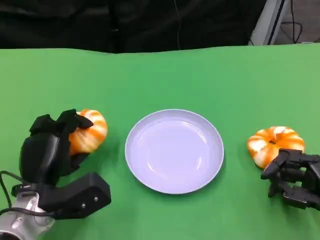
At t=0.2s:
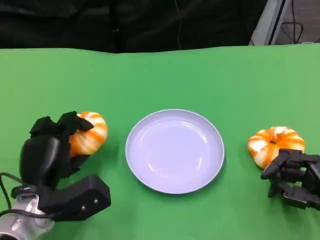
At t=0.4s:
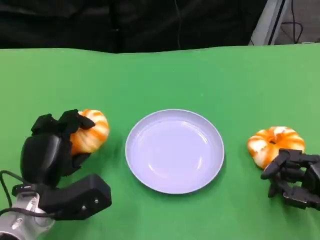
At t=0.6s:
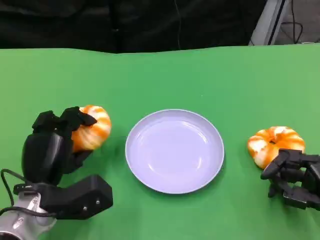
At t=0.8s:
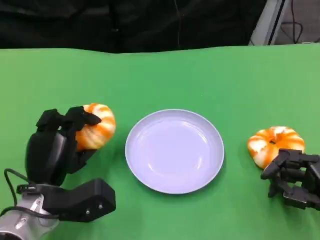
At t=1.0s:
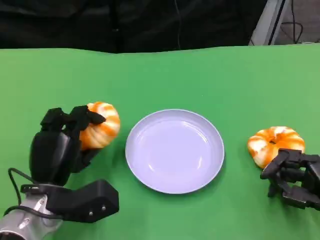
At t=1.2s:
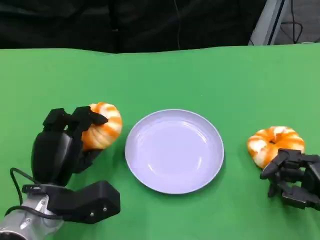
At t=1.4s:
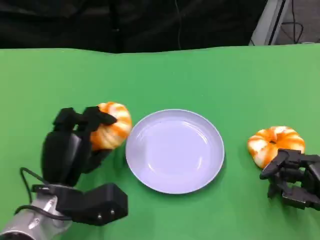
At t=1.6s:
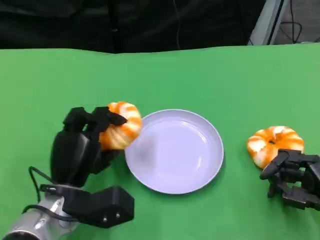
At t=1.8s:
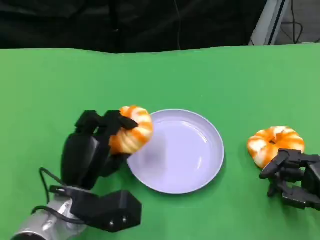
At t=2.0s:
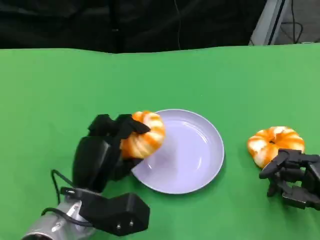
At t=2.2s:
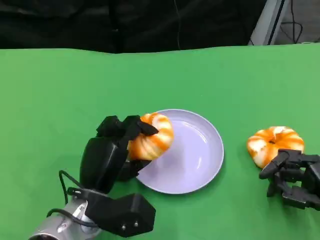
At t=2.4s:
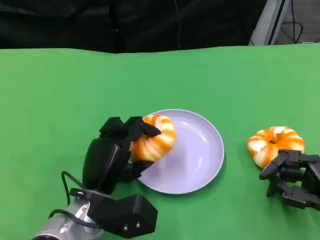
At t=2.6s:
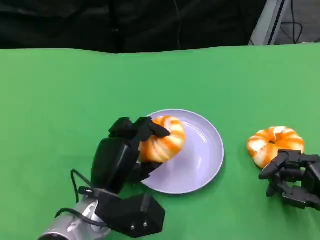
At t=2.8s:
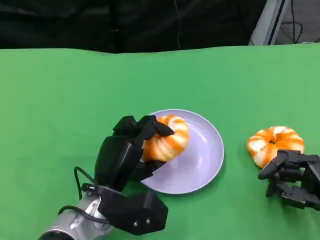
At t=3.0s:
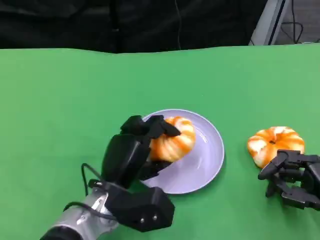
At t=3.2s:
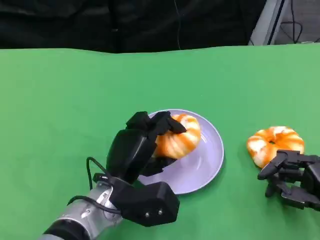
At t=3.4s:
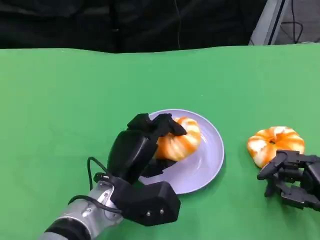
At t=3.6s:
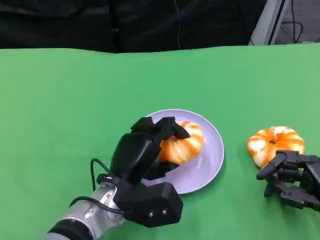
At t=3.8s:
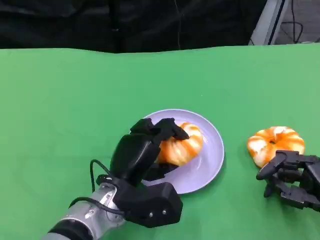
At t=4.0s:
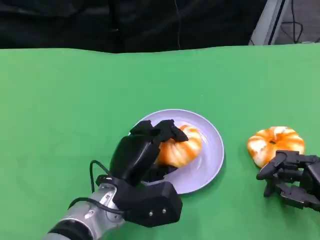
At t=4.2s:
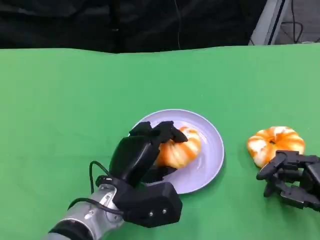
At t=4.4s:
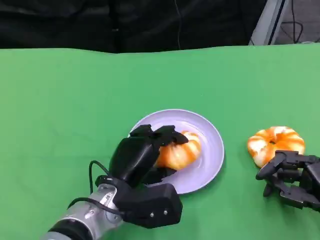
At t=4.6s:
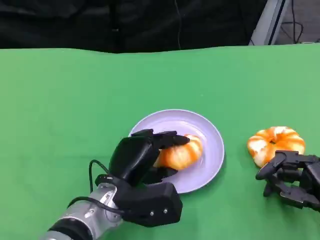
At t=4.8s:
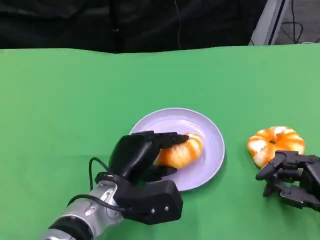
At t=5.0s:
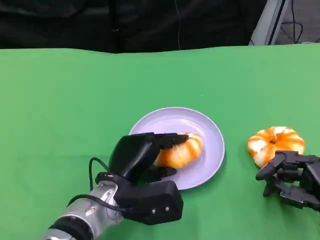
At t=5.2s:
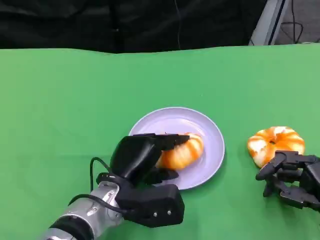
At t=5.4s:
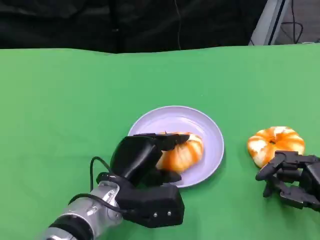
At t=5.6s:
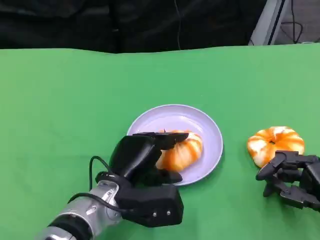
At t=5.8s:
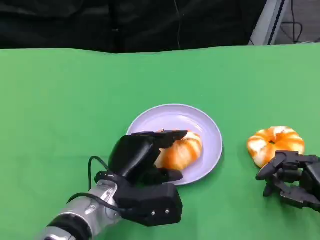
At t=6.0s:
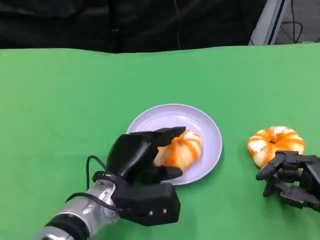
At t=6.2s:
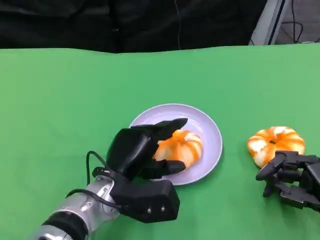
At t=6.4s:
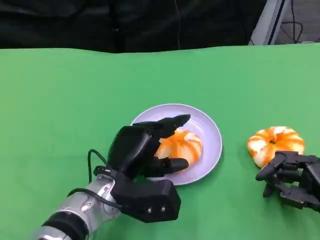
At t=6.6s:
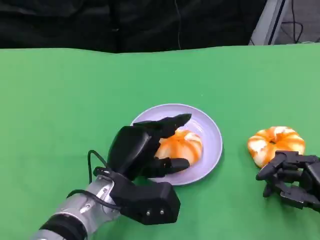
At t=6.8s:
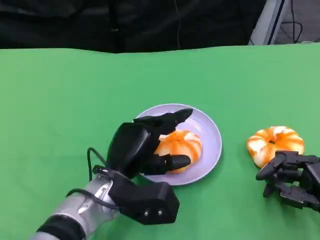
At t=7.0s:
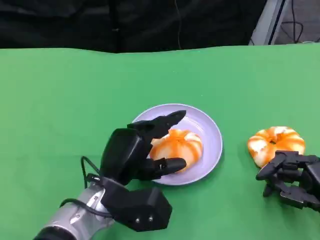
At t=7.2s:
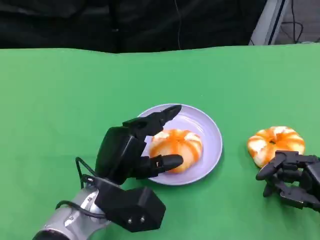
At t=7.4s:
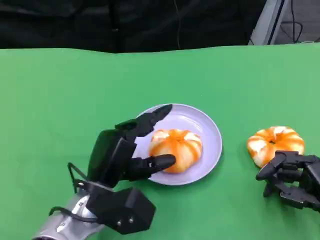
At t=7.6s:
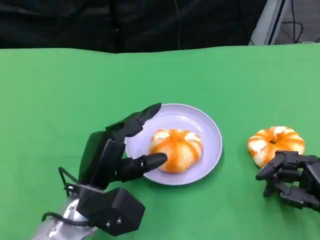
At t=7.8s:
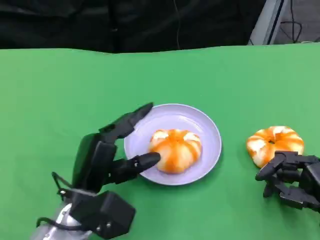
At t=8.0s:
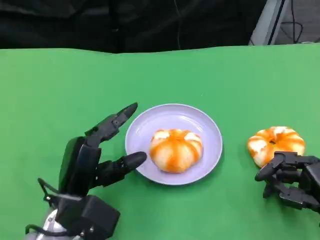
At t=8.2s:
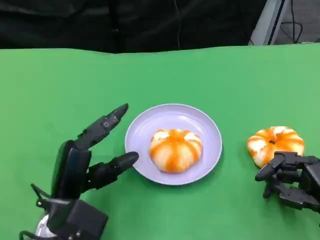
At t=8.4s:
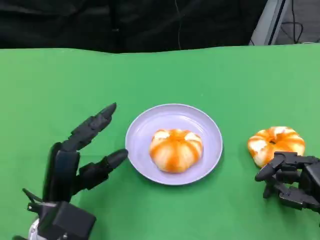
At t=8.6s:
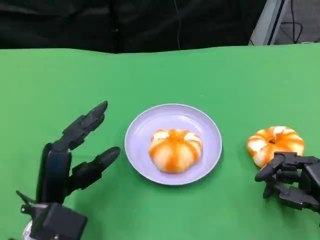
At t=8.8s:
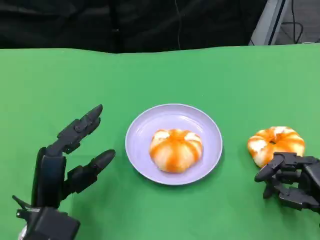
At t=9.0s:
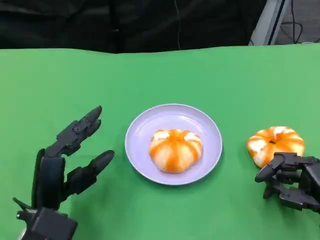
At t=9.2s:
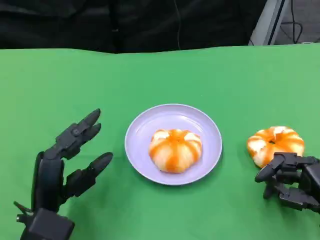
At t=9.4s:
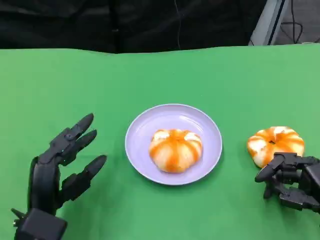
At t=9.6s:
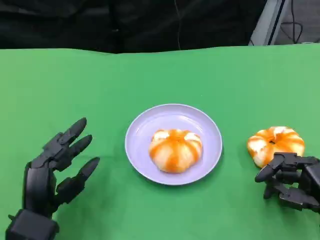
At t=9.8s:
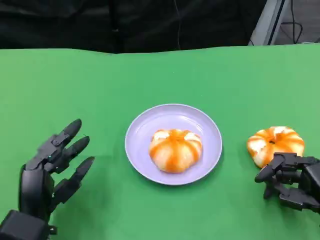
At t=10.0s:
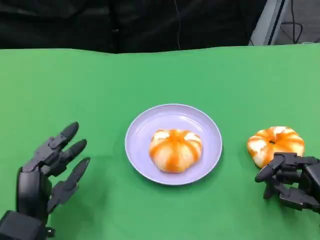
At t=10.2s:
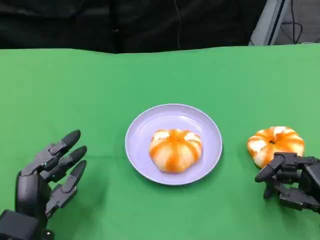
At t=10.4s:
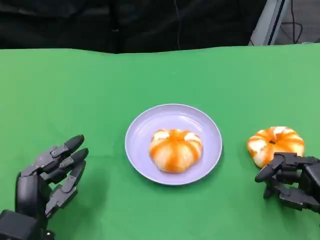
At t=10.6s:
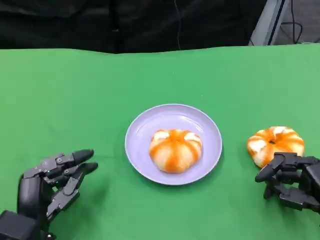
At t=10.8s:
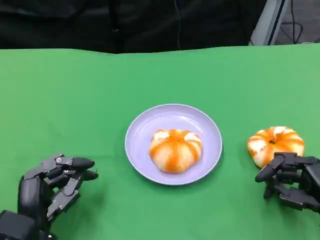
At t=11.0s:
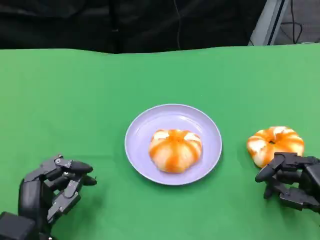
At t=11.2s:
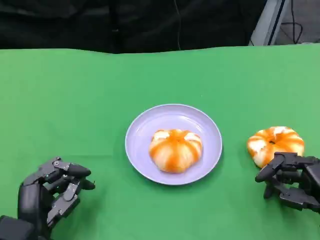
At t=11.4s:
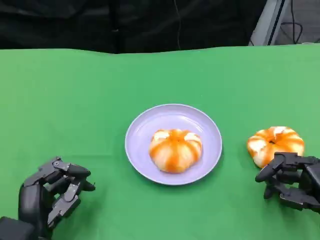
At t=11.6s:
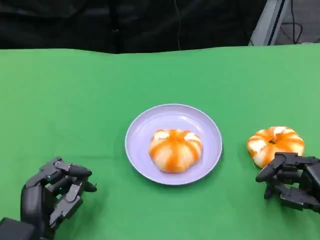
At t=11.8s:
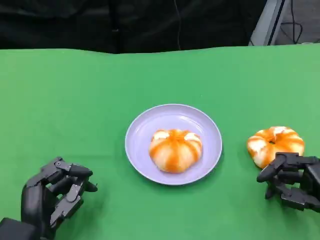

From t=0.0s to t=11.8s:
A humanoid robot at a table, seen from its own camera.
Task of the whole recording: Grasp the bread from the table and place it into the plate.
From t=0.0s to t=1.4s: There are only small adjustments of the hands.
From t=1.4s to t=3.0s: The left hand is displaced to the right by approximately 5 cm.
From t=3.0s to t=6.0s: There are only small adjustments of the hands.
From t=7.4s to t=8.8s: The left hand is displaced to the left by roughly 5 cm.
From t=10.4s to t=11.8s: There are only small adjustments of the hands.

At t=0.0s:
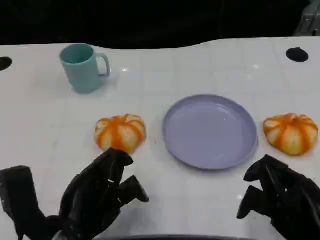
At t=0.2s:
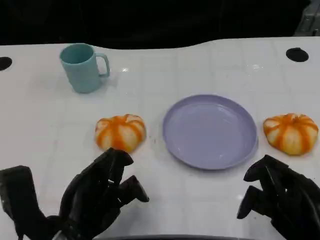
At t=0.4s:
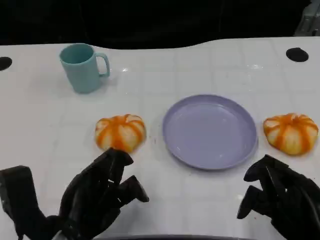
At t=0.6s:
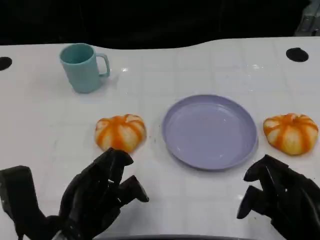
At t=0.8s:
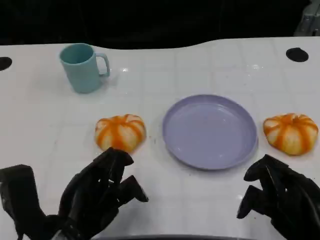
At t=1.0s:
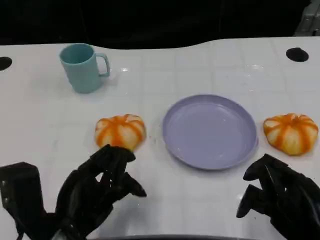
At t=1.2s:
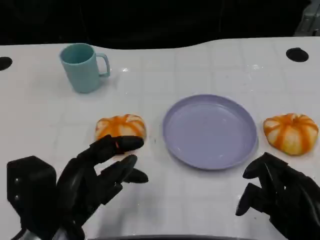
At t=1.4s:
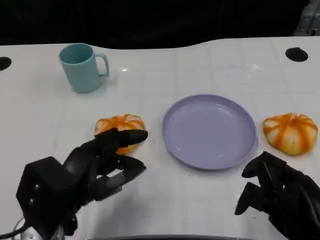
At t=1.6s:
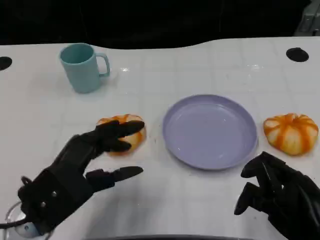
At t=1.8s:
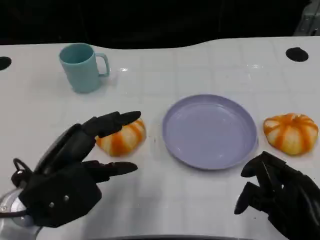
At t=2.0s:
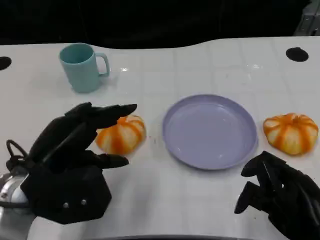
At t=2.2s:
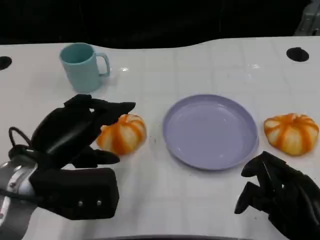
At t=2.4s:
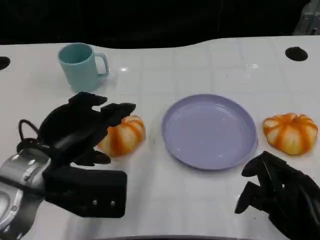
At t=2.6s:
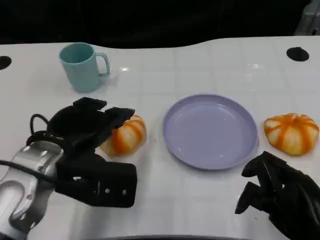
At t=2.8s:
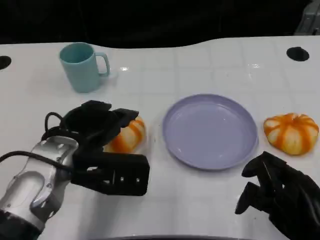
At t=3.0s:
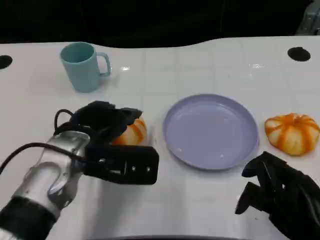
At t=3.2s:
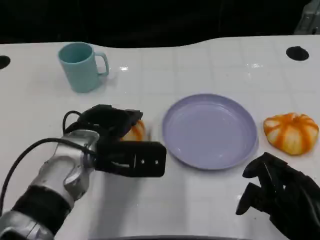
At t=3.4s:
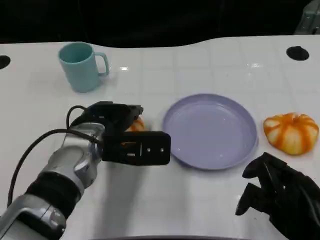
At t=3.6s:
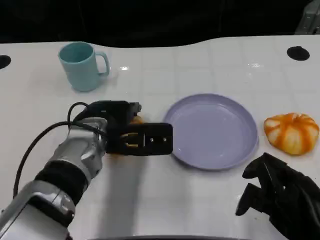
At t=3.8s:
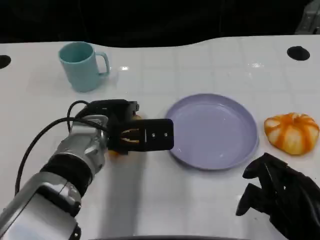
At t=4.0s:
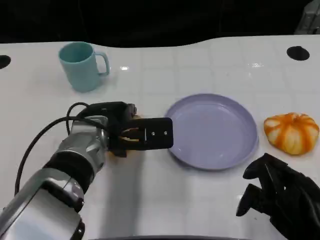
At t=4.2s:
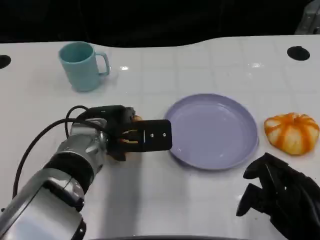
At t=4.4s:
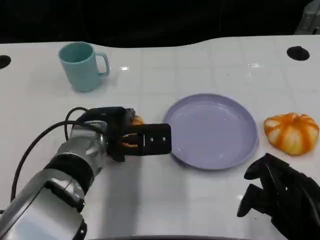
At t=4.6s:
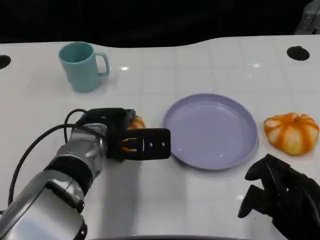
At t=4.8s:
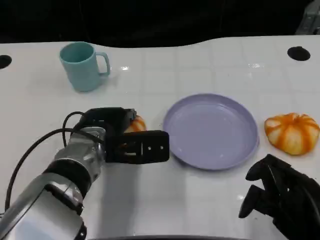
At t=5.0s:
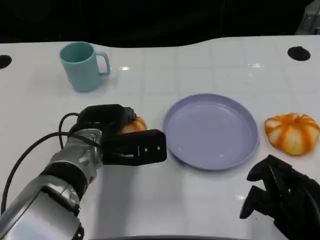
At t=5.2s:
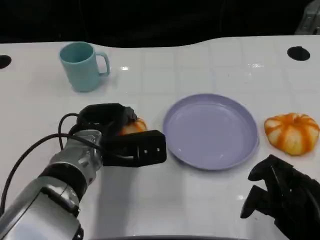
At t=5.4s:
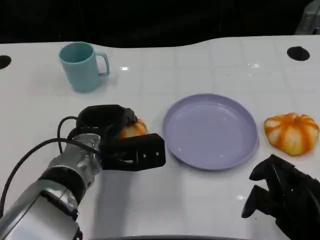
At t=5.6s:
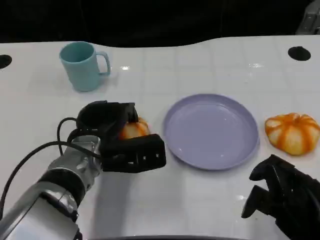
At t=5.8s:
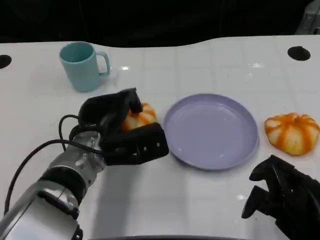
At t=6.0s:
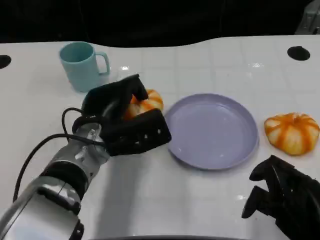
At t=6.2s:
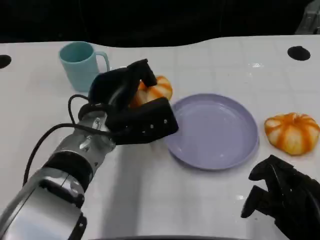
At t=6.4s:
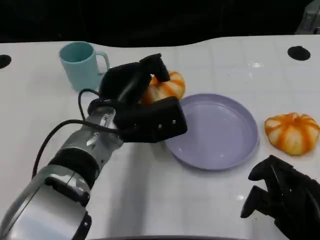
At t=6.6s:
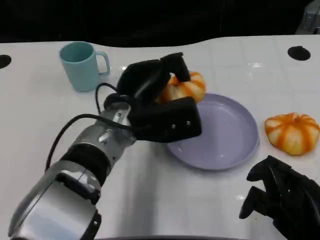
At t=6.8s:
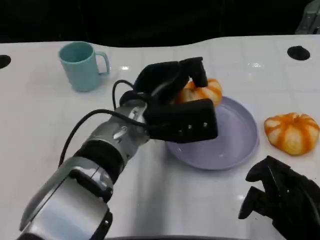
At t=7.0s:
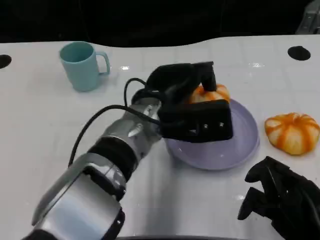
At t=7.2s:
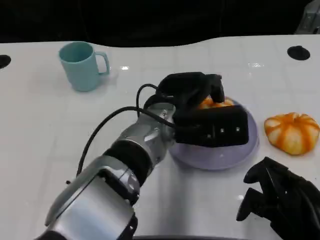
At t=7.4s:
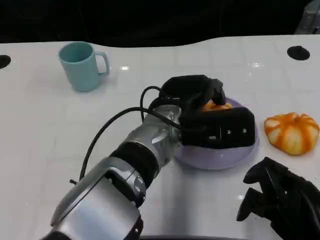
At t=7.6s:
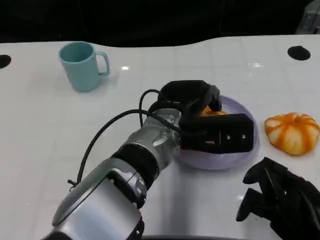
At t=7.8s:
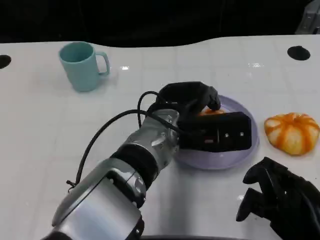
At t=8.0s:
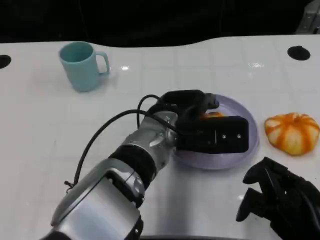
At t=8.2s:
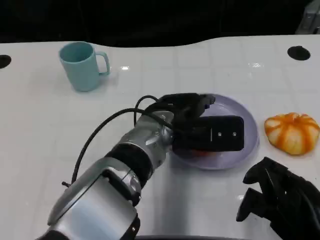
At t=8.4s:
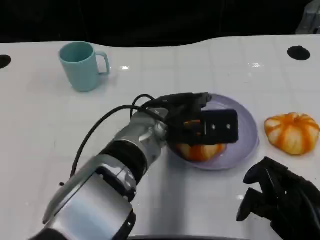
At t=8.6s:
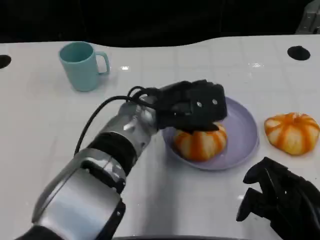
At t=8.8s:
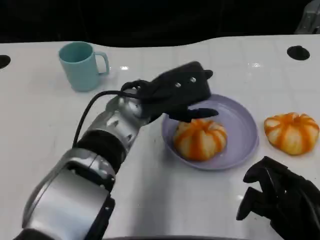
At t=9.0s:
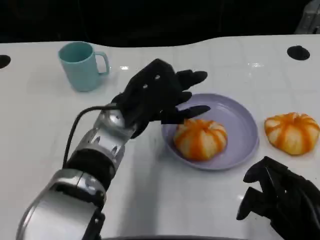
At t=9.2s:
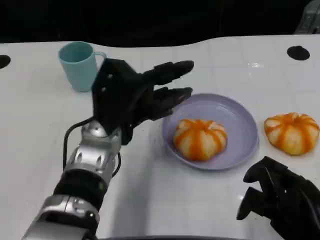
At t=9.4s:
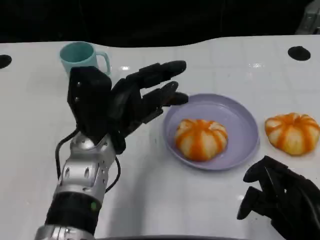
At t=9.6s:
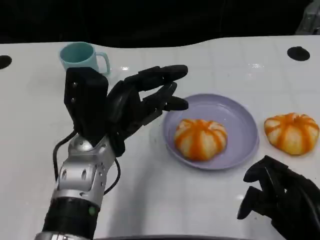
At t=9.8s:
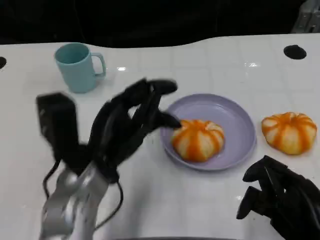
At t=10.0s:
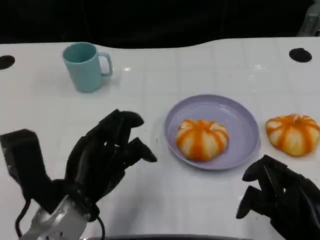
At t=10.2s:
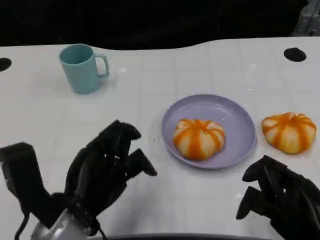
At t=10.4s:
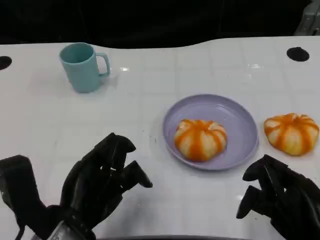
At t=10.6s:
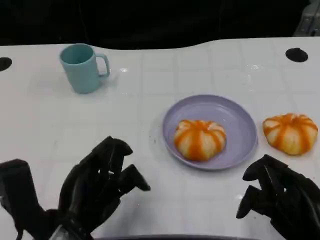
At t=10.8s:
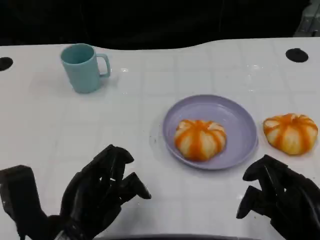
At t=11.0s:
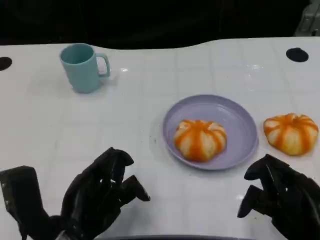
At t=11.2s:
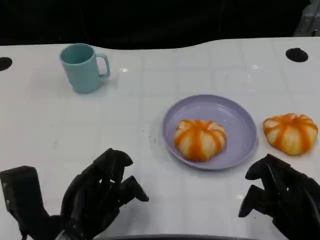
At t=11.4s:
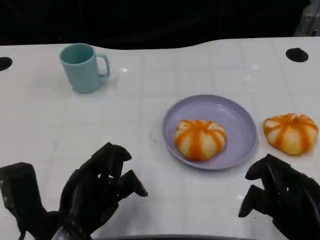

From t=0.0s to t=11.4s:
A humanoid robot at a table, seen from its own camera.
Task of the whole recording: Grasp the bread from the table and place it into the plate.
From t=1.4s to t=2.8s: The left hand travels forward by some 10 cm.
From t=2.8s to t=4.2s: The left hand travels forward by approximately 5 cm.
From t=5.6s to t=7.2s: The left hand travels to the right and upward by about 15 cm.
From t=8.6s to t=10.0s: The left hand heads backward and to the left, covering approximately 15 cm.
From t=10.0s to t=11.4s: There are only small adjustments of the hands.
